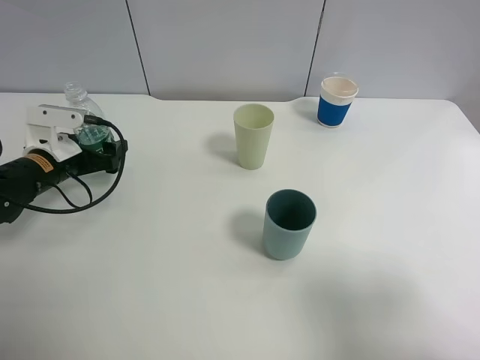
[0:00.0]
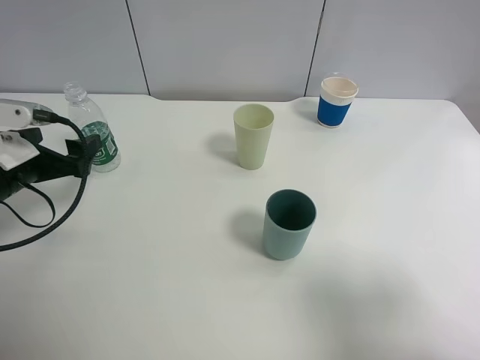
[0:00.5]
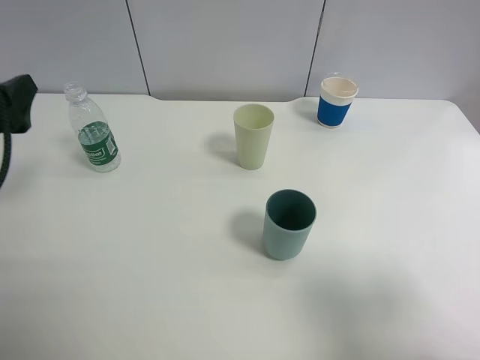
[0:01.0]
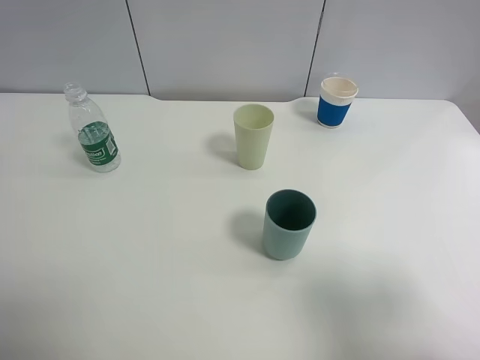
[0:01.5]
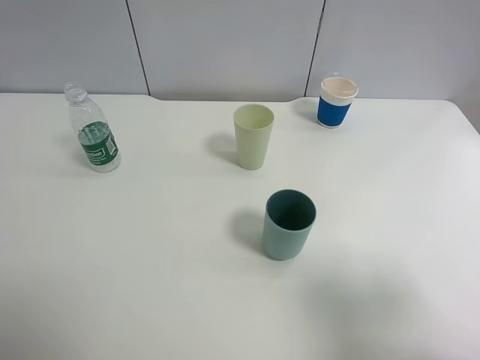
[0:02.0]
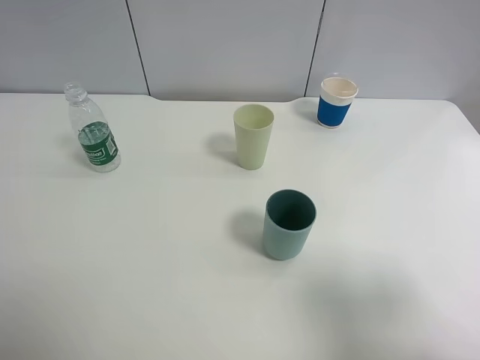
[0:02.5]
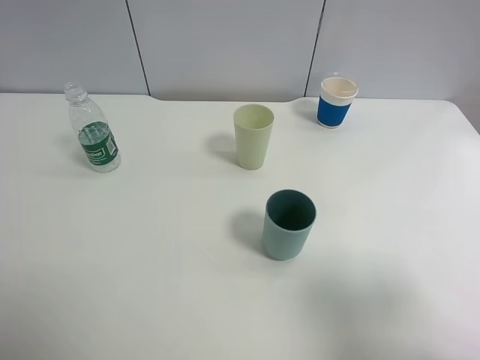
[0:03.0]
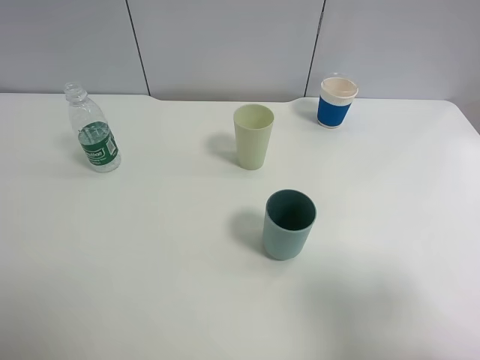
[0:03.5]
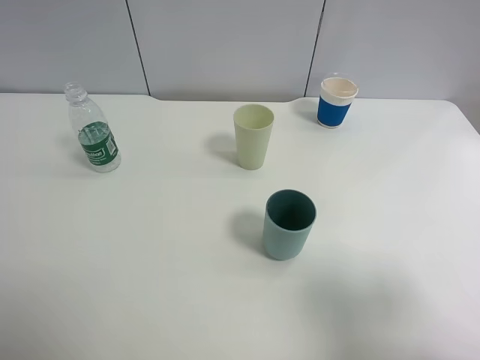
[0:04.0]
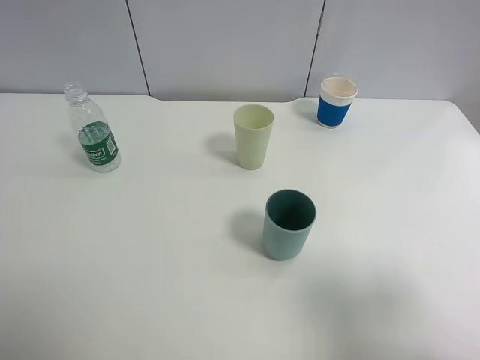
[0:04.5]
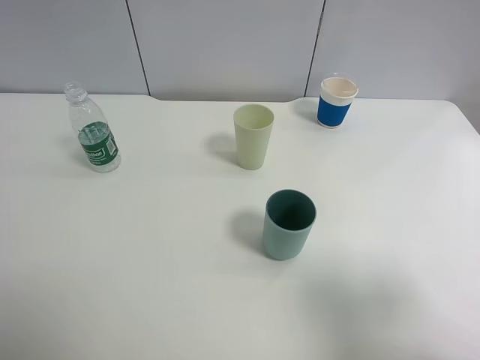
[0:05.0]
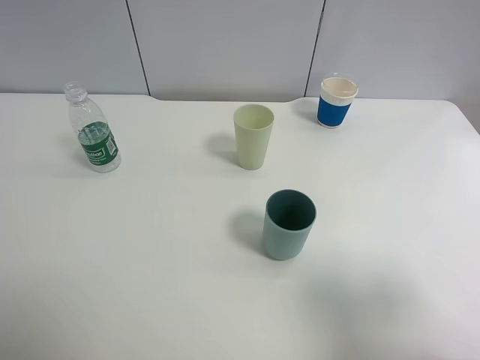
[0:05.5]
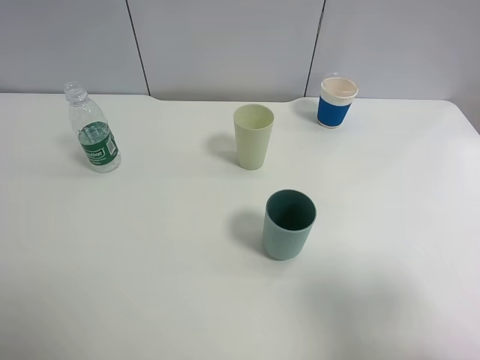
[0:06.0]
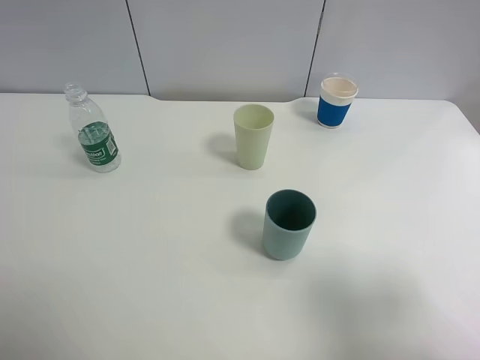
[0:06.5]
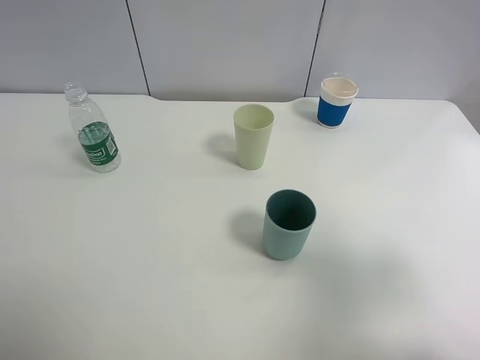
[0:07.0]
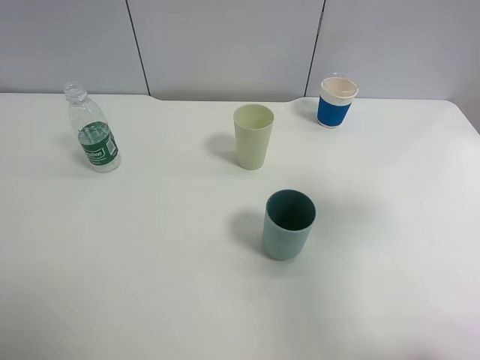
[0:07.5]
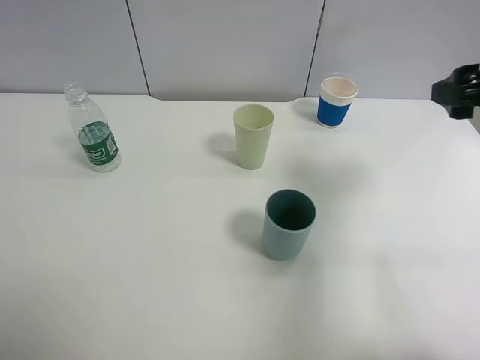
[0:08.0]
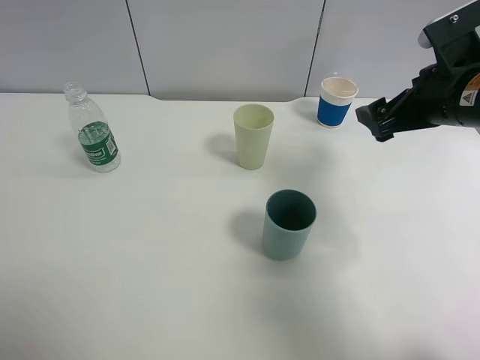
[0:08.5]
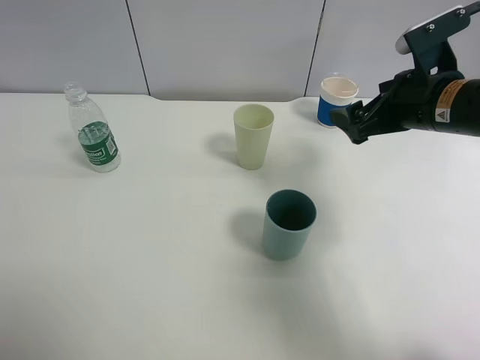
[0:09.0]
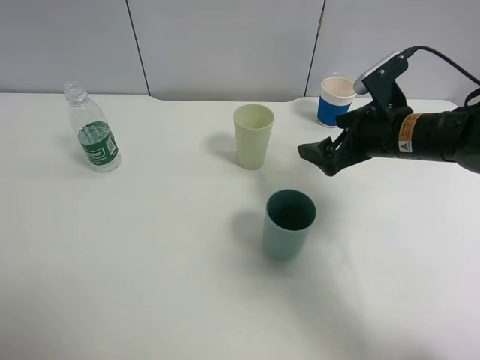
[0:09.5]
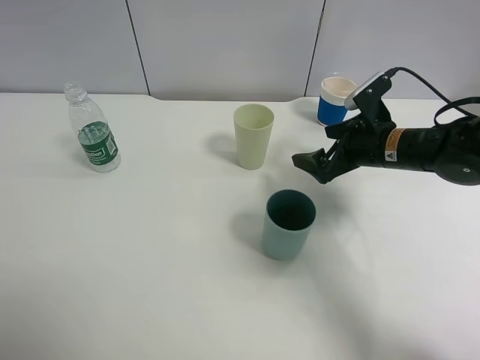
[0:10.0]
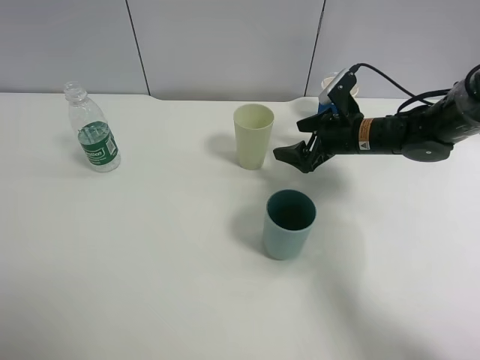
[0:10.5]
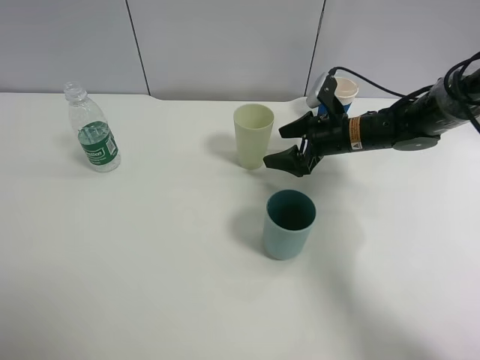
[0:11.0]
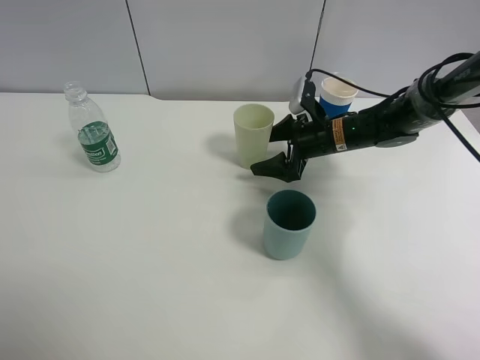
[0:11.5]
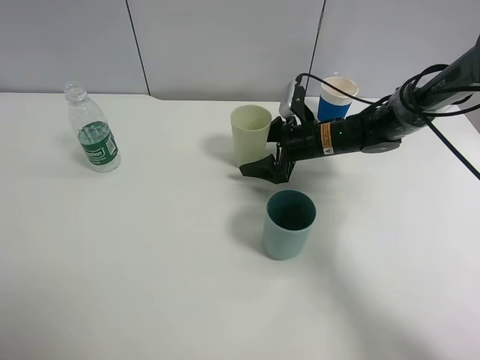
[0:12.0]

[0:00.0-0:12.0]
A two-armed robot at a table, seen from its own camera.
Task of the whole recording: use a clamp to hold the bottle of the drink, pour the beverage into a random cup, then clamp the cup containing the drink and pour the drink into another random cup.
0:00.0 to 0:02.0: The left gripper heads upward and backward, covering roughly 35 cm.
0:04.0 to 0:06.0: Both grippers stay about where they are.
0:06.0 to 0:08.0: The right gripper shifts some 20 cm forward.
0:08.0 to 0:10.0: The right gripper travels downward, forward and to the left by roughly 20 cm.
0:10.0 to 0:12.0: The right gripper travels forward, to the left and downward by roughly 10 cm.

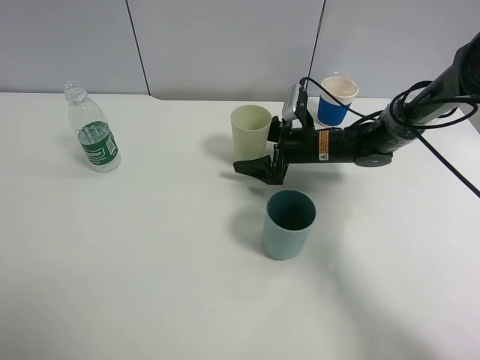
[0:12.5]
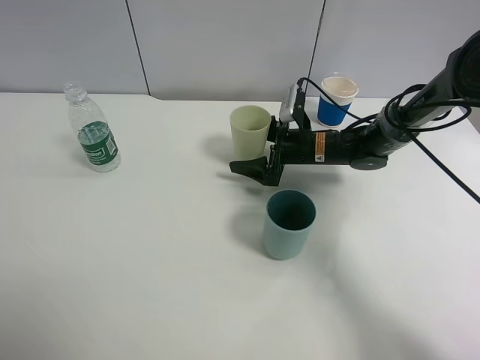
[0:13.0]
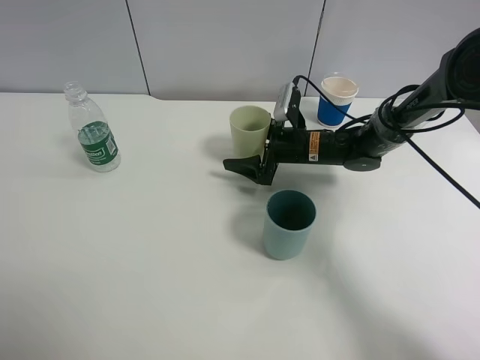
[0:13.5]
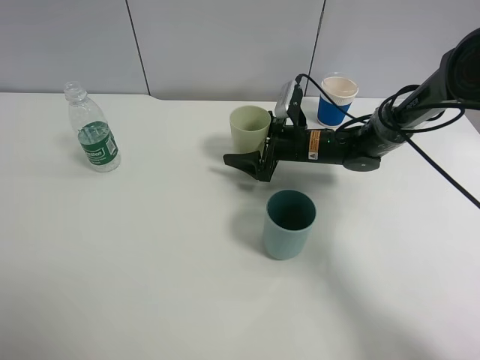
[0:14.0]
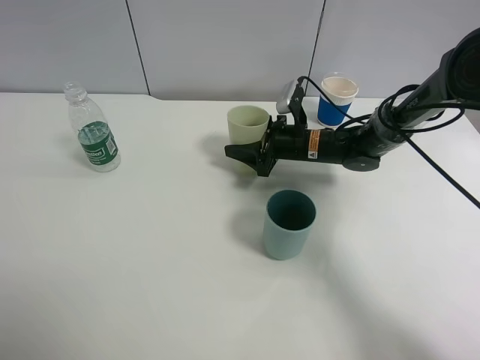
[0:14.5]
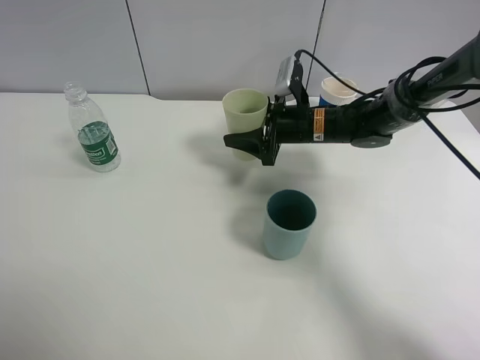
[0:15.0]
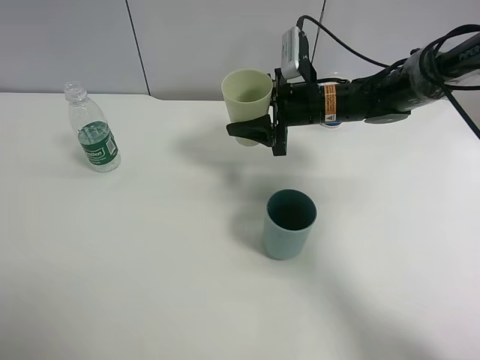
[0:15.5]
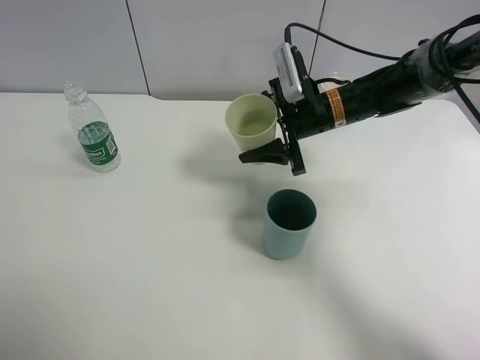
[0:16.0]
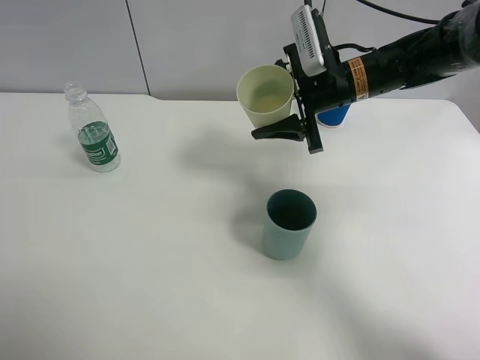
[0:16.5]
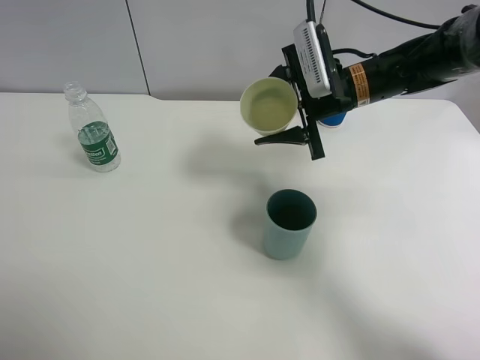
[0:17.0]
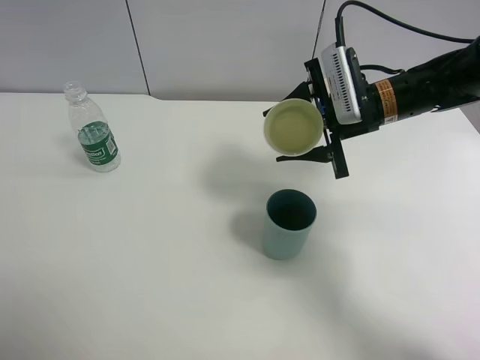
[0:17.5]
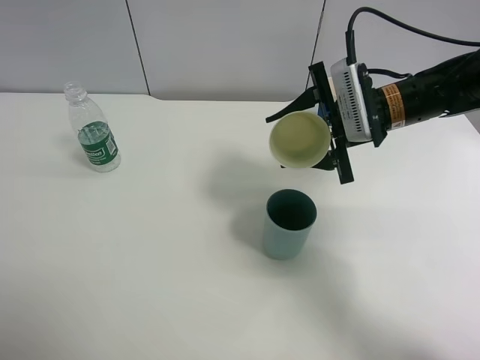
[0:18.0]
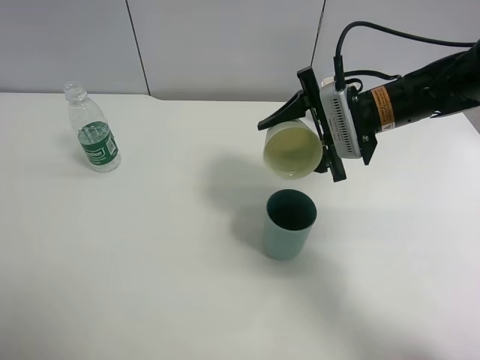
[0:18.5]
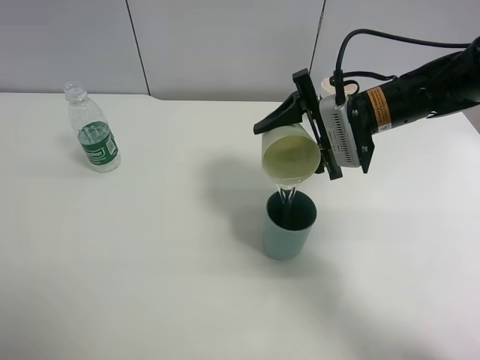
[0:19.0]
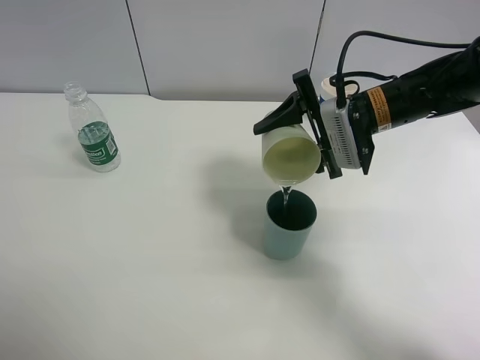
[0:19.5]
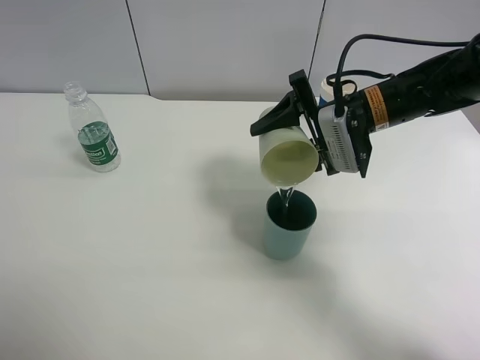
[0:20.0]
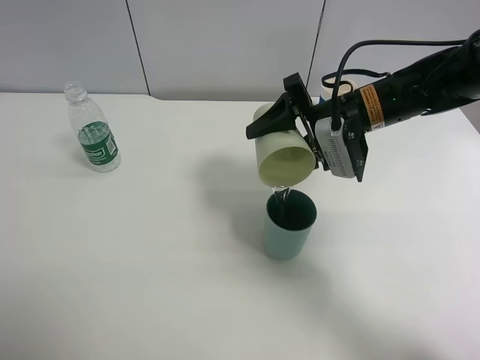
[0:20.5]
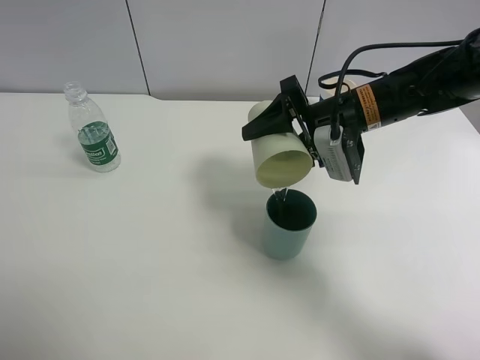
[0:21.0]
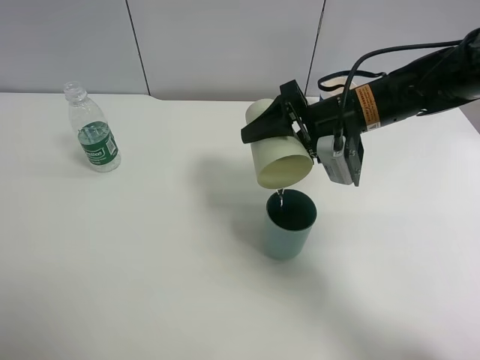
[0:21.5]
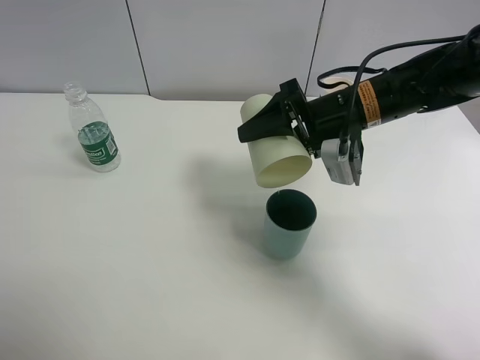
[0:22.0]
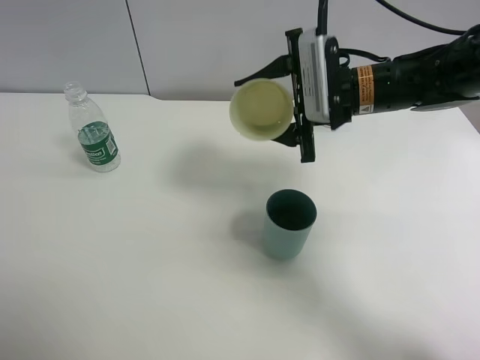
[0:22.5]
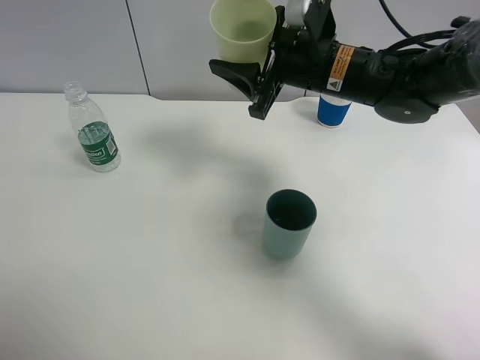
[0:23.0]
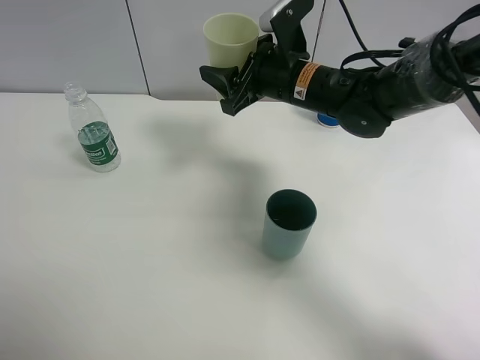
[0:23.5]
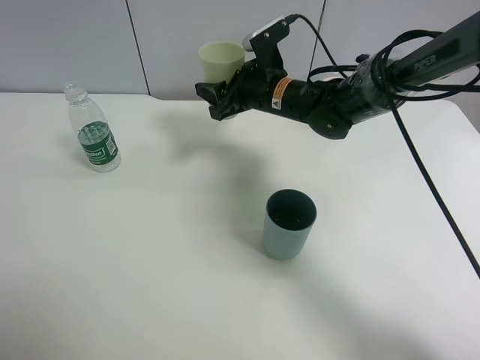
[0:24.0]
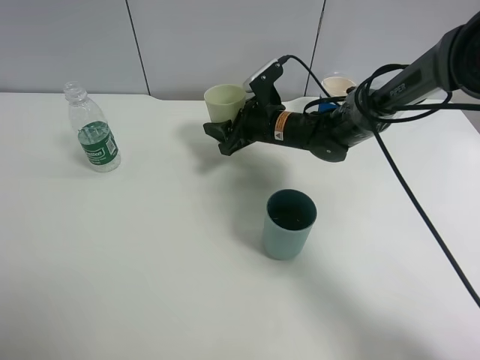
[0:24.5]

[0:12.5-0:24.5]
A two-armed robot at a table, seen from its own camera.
Task of the whole recording: use a clamp to hold the bottle of the drink, pour the beverage into a random cup, then clamp the cup containing the drink and pour the drink into another random cup.
Step, 0:12.5 to 0:16.0: Pick up the green plastic cup with right gripper.
Step, 0:16.5 to 0:22.0: Pour water into the blue plastic cup with right gripper.
0:12.5 to 0:14.5: The right gripper closes.
0:14.5 to 0:16.5: The right gripper heads upward, covering approximately 15 cm.
0:16.5 to 0:18.5: The right gripper ends up some 5 cm from where it was.
0:22.5 to 0:24.5: The right gripper goes roughly 15 cm downward, forward and to the left.

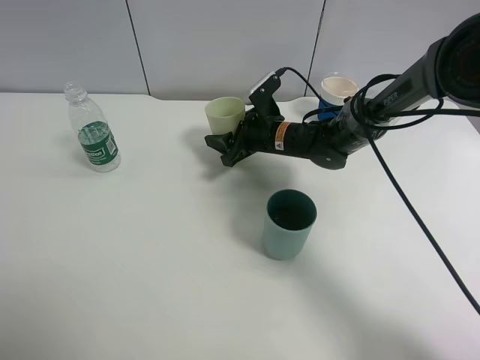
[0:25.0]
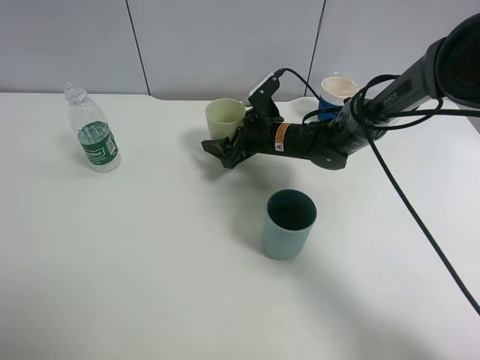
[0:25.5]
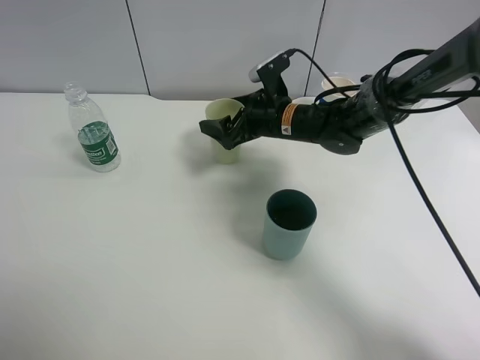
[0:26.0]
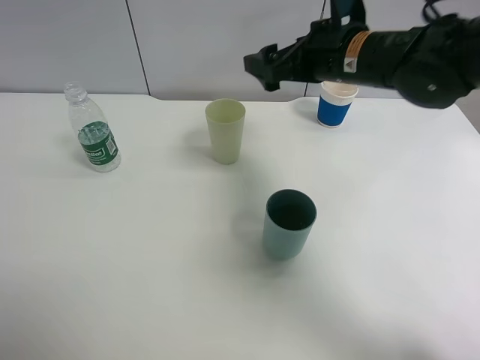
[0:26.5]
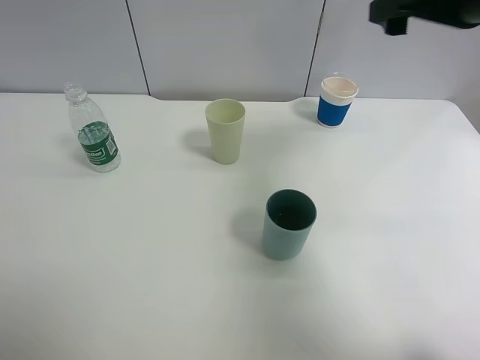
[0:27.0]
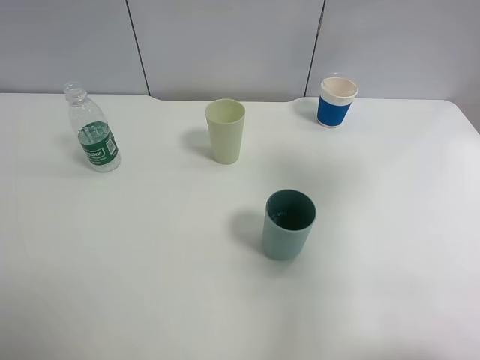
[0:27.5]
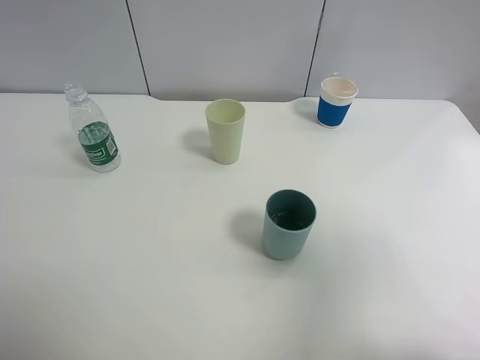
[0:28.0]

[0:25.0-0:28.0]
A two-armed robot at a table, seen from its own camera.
Task of the whole recording: use a clamp to hold the bottle of the drink, pour the beverage into a random cup, then clamp the cup containing the drink and pour the drink into another random cup.
0:25.0 to 0:26.5: The right gripper is displaced upward by approximately 20 cm, and opens its fingers.
0:26.5 to 0:28.0: The right gripper moves backward and to the right, some 35 cm.
